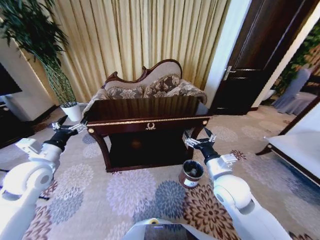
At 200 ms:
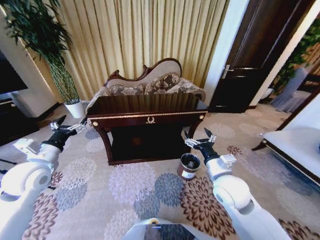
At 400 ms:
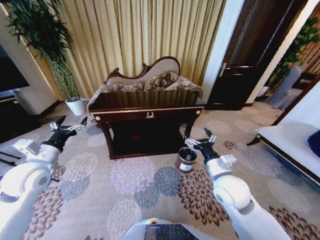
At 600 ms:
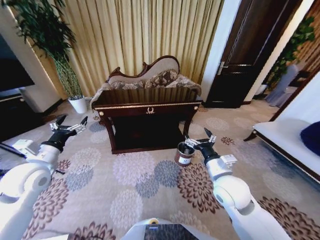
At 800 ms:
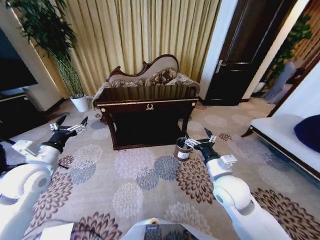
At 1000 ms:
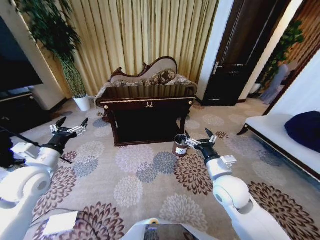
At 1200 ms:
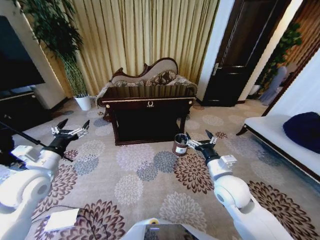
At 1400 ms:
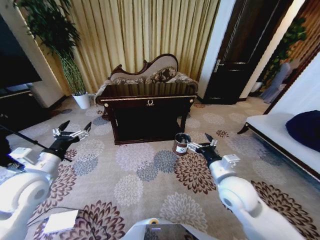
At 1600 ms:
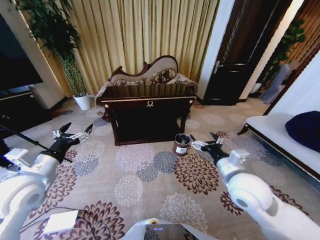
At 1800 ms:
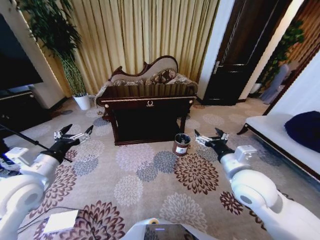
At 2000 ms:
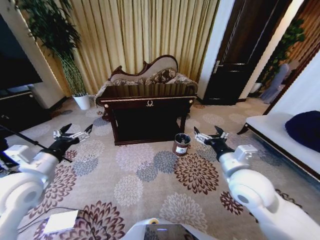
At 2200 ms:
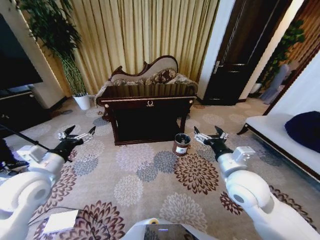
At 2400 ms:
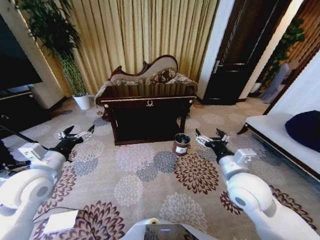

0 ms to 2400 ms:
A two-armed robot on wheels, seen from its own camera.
Task of the whole recording: Move to the front of the table and place the trash on the table into the trash bin.
1200 ms to 2400 ms: The right gripper goes about 5 cm upward.
